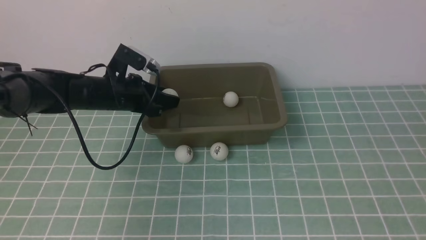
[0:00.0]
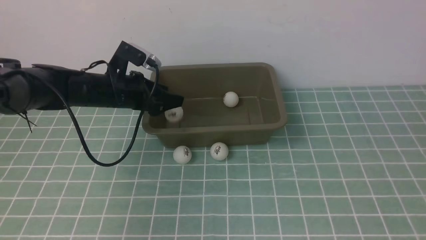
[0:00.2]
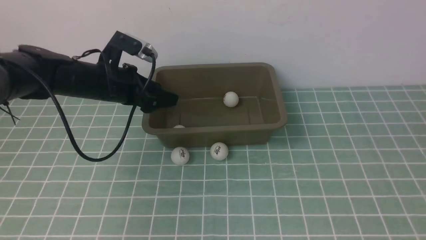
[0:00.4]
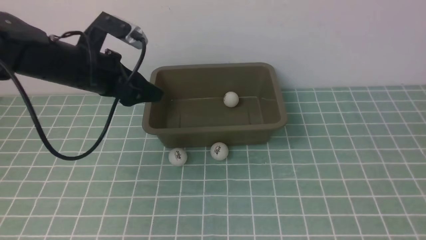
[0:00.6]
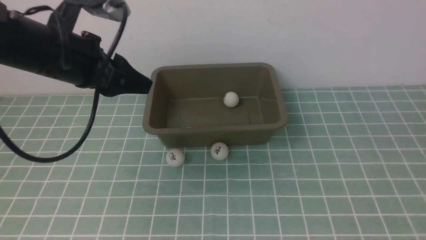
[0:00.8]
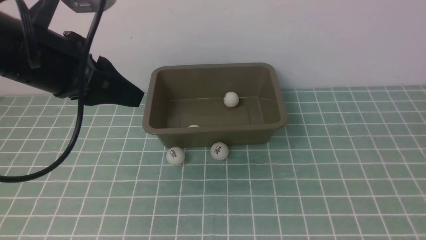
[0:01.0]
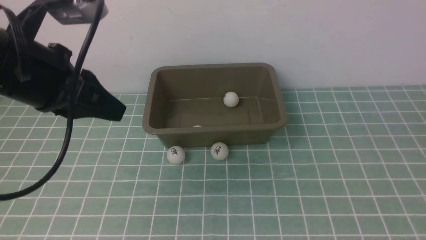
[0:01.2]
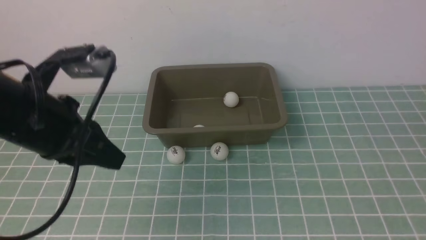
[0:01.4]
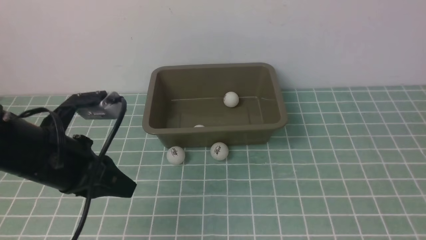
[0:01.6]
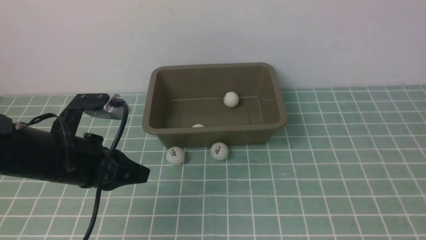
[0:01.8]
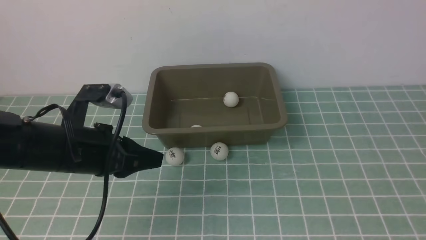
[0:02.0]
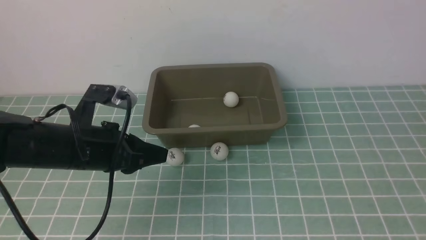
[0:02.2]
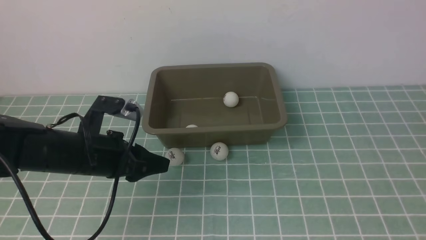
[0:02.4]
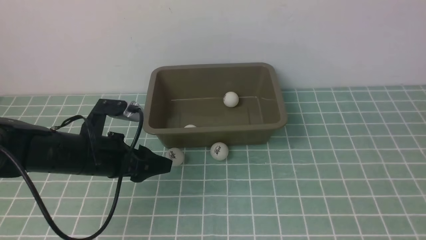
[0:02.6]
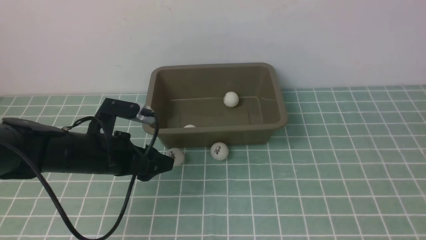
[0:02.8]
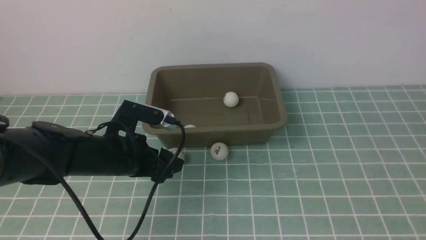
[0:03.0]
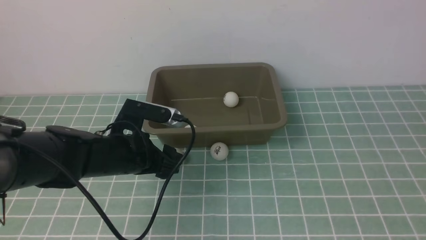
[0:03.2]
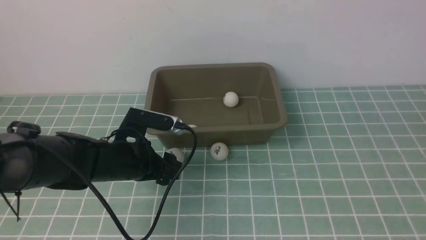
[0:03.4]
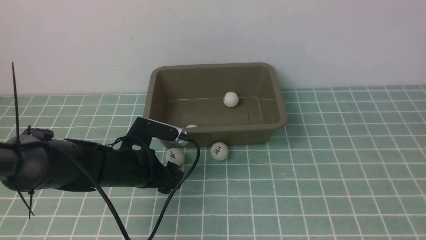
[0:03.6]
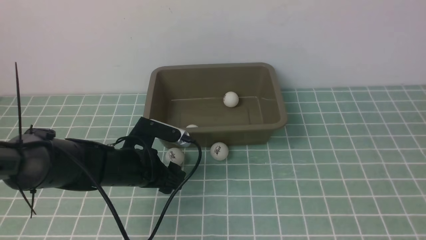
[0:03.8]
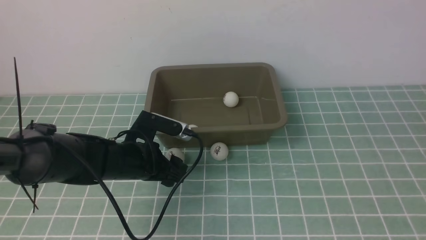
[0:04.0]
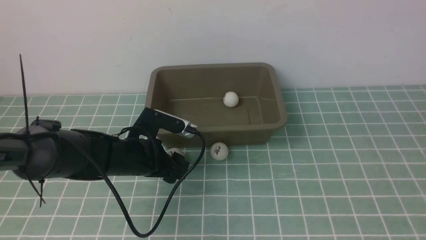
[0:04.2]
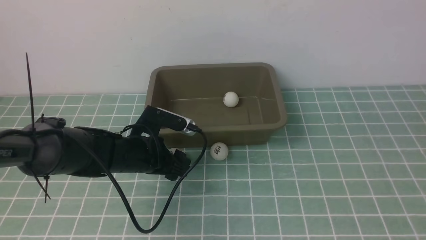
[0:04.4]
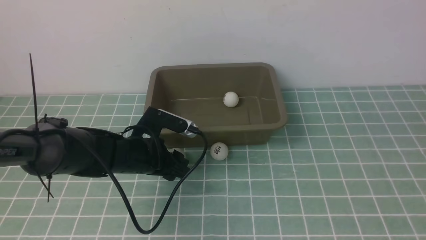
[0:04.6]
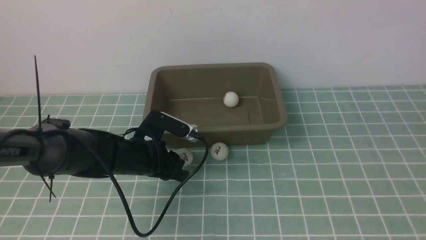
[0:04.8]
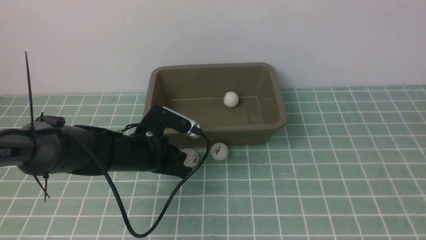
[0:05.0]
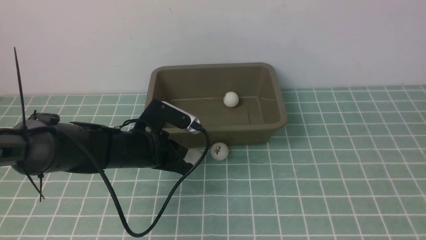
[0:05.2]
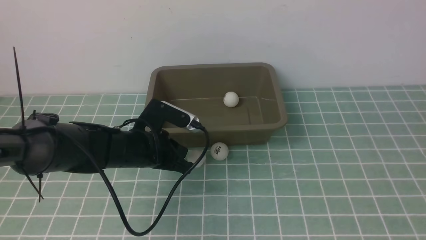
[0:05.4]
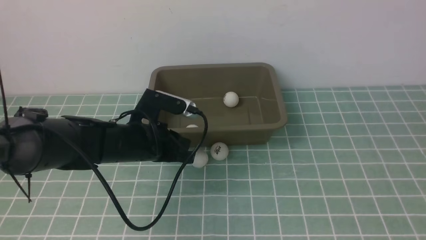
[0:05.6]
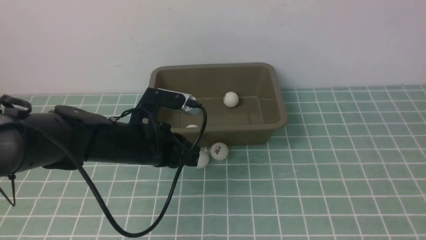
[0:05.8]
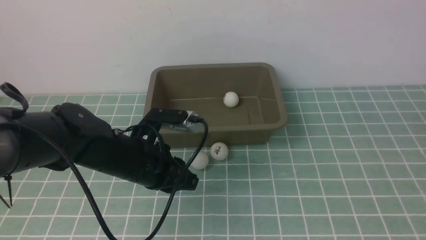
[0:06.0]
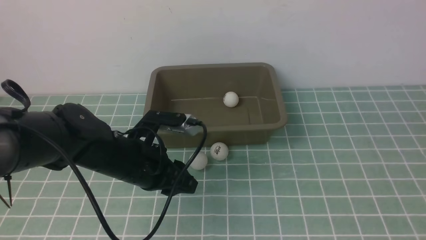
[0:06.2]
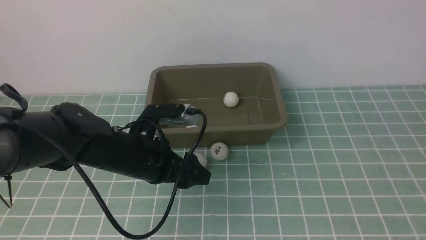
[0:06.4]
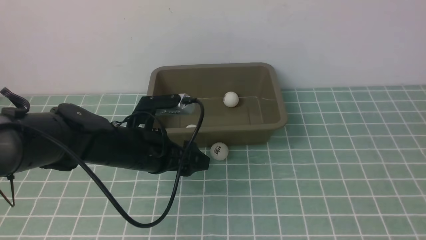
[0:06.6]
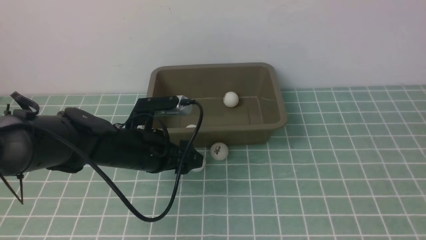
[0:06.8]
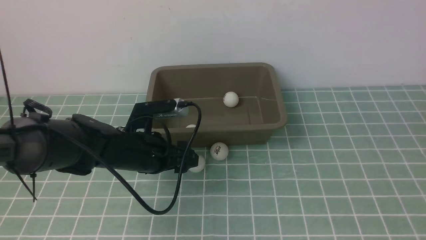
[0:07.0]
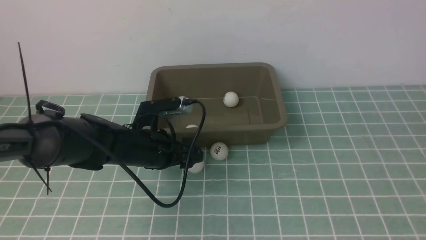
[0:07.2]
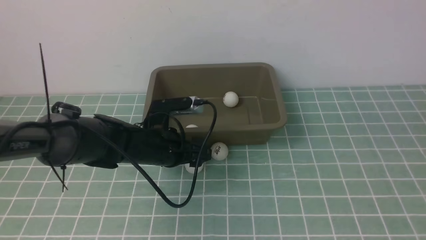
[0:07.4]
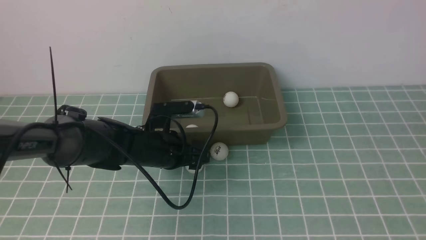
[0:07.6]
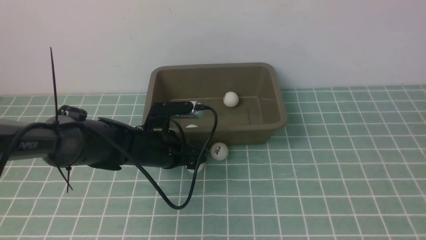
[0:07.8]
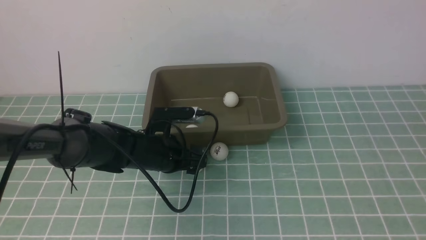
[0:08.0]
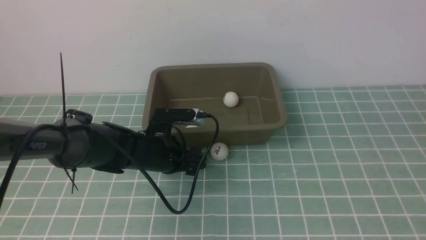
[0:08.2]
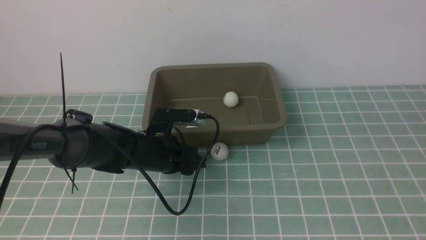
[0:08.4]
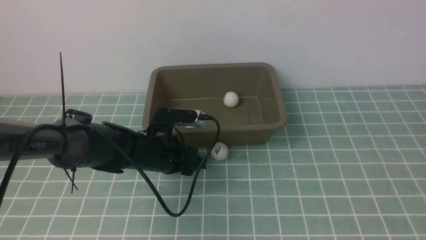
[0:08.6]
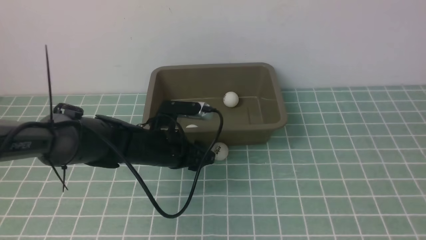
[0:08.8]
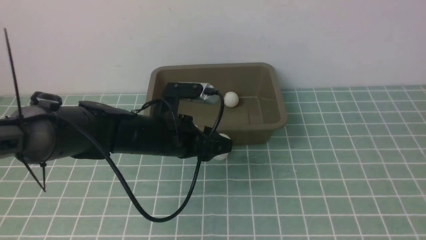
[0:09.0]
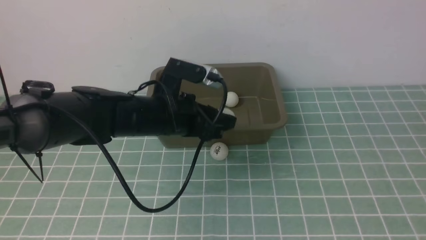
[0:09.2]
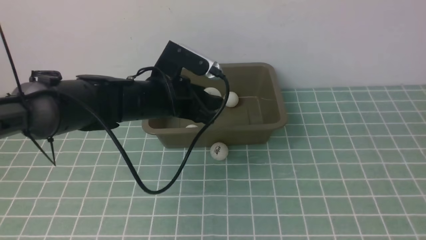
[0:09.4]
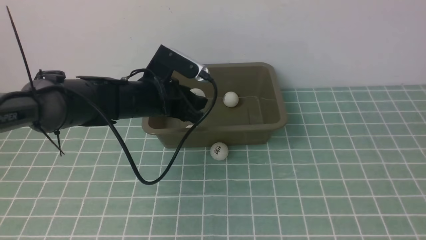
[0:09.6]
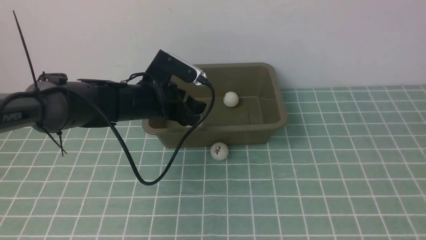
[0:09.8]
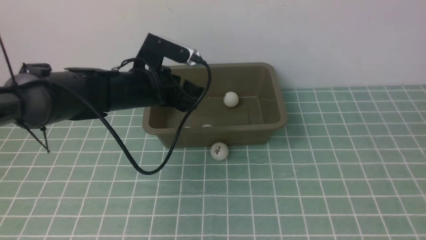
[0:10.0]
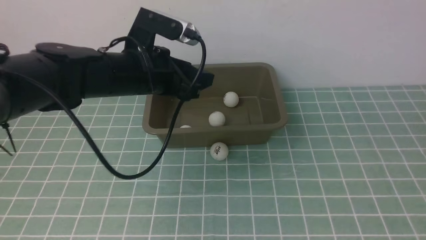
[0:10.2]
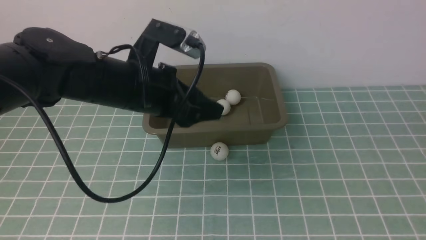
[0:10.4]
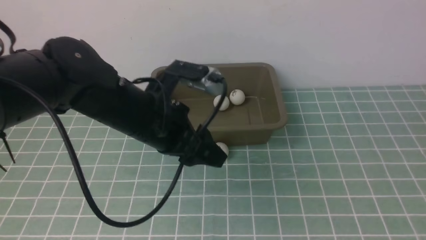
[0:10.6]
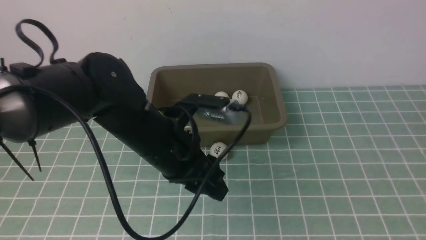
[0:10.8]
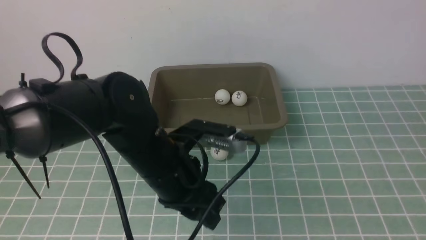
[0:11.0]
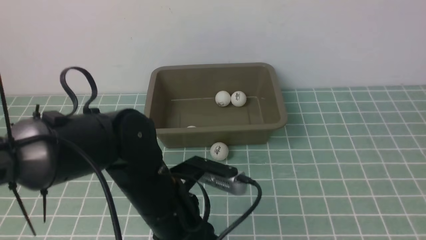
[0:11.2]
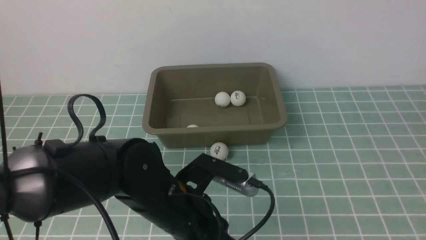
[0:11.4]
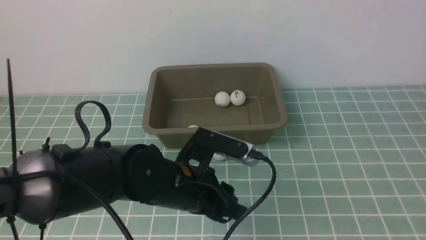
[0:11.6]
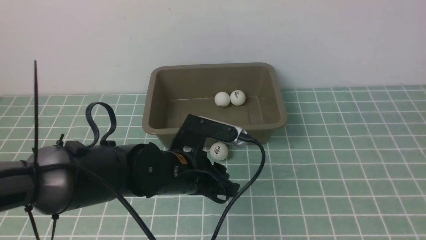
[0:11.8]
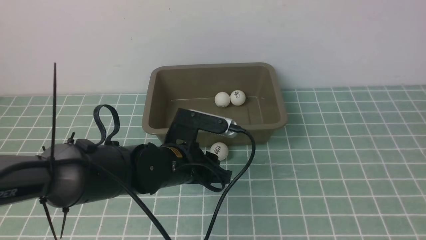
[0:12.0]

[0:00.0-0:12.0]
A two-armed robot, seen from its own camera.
Step, 0:00.6 to 0:08.8: use the left arm to clamp the table tennis ball closest to it.
Step, 0:09.0 to 0:10.0: use the left arm to put the table tennis ball into the box.
0:00.0 to 0:01.6: The left gripper travels backward by approximately 15 cm, and closes its fingers.
0:01.6 to 0:03.0: The left gripper shifts approximately 10 cm downward and forward, and opens its fingers.
0:03.0 to 0:04.4: The grippers make only small movements.
0:04.4 to 0:06.0: The left gripper is displaced upward by roughly 5 cm.
0:06.0 to 0:07.6: The left gripper moves forward and downward, about 10 cm, and opens its fingers.
0:07.6 to 0:09.0: The left gripper moves upward, approximately 10 cm, and closes its fingers.
0:09.0 to 0:10.4: The left gripper is displaced backward by some 5 cm.
0:10.4 to 0:12.0: The left gripper heads downward, covering roughly 10 cm.

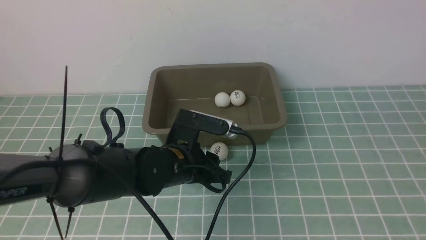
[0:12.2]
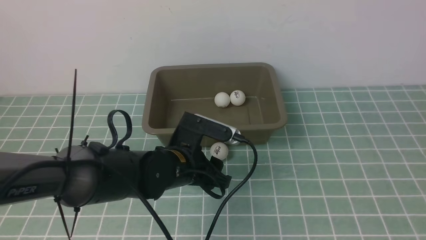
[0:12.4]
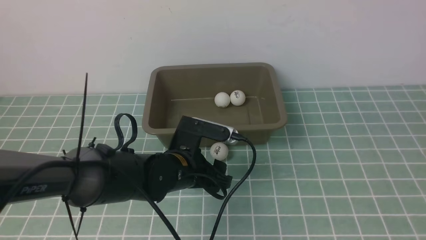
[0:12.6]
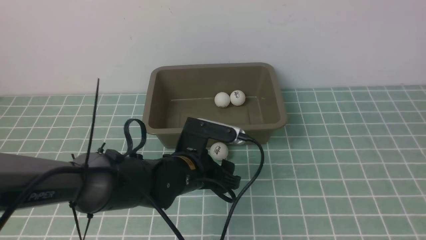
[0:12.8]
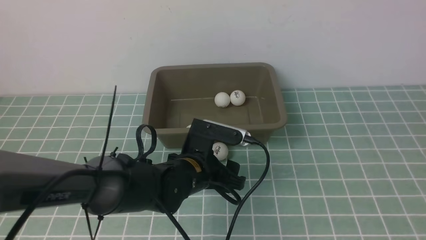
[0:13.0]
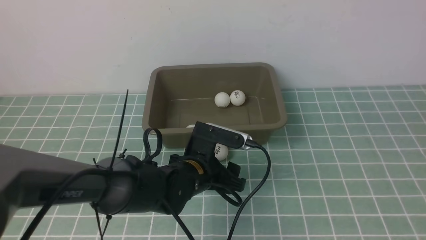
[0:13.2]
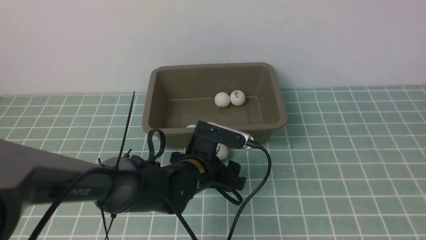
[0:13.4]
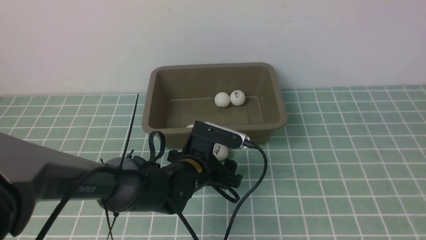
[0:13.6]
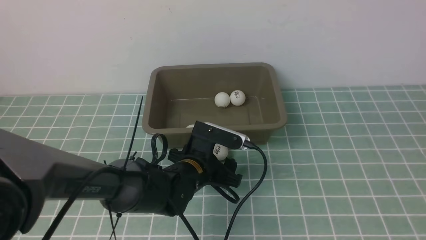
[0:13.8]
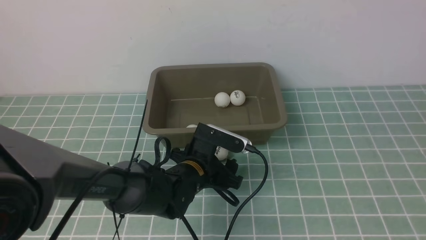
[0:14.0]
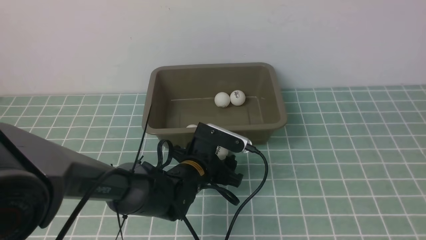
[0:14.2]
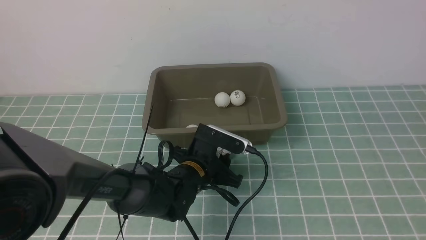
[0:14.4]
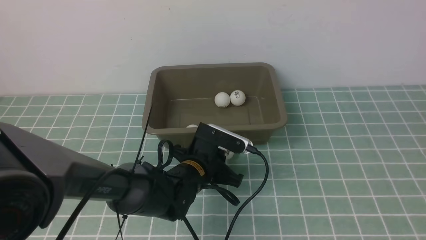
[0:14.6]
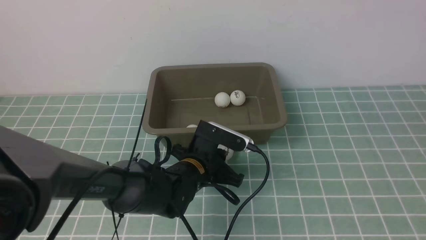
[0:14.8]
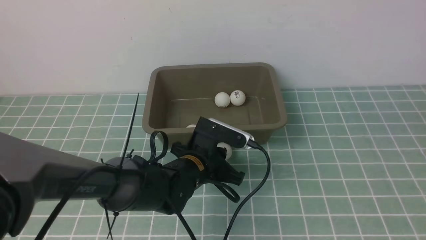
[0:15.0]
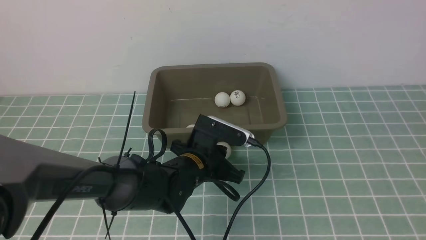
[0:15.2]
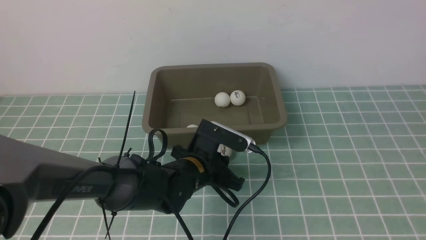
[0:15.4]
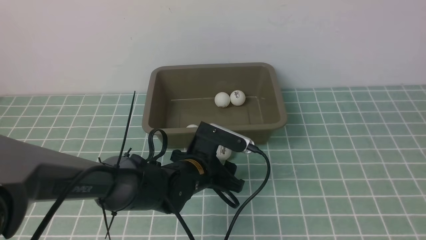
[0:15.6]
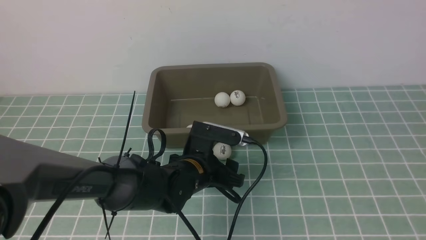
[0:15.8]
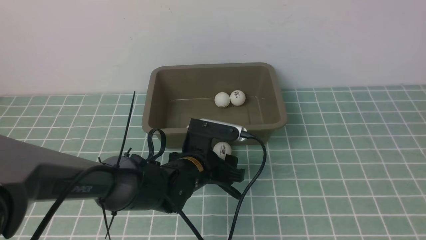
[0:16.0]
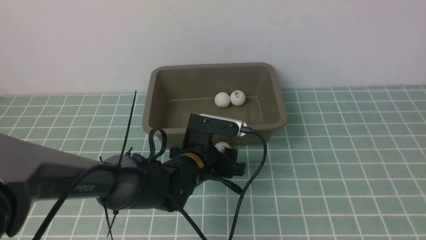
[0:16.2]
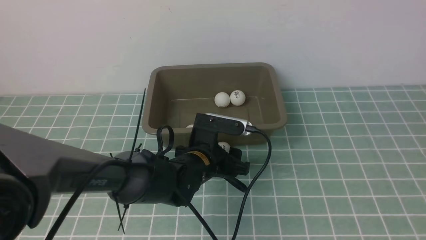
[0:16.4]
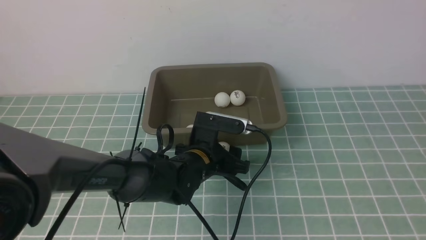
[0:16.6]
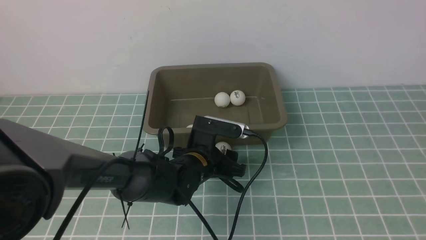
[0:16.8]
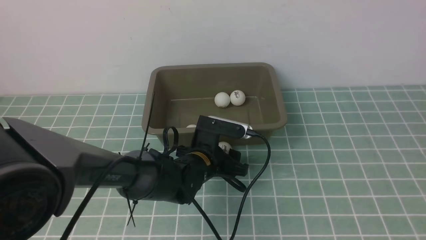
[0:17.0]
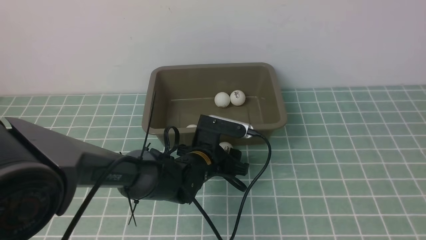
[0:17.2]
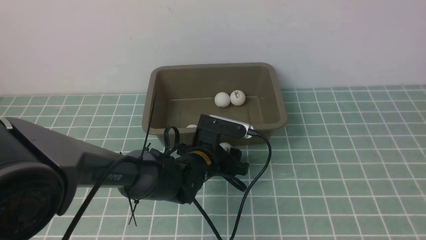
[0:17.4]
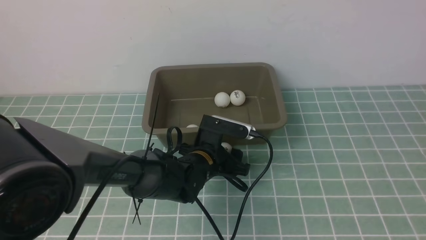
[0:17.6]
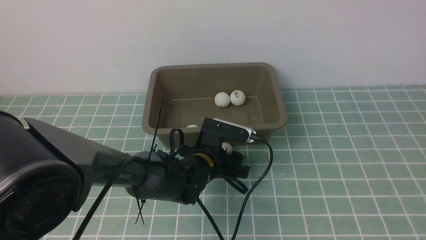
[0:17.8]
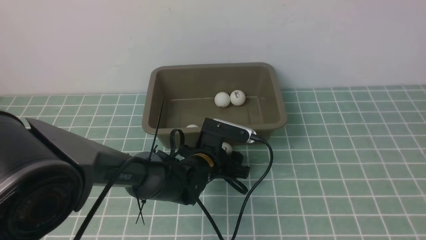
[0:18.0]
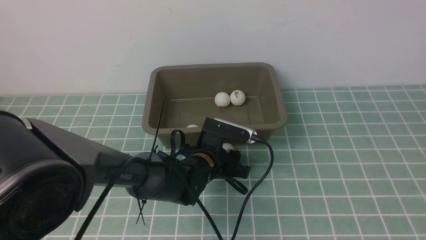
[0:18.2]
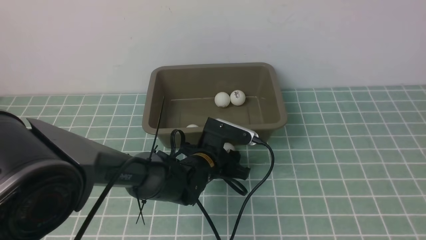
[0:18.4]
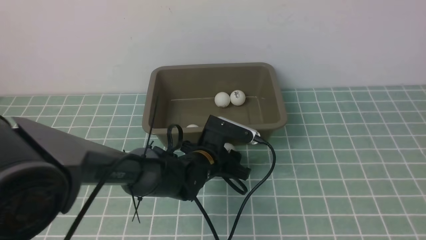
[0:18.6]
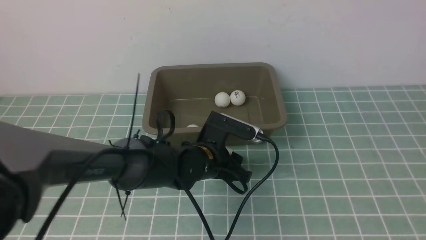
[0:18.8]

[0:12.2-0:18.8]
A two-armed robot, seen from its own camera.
0:12.2 to 0:13.8: The left gripper heads downward, covering roughly 5 cm, and opens up.
0:13.8 to 0:15.4: The left gripper closes.
0:15.4 to 0:17.2: The left gripper opens.
0:17.2 to 0:18.8: The grippers move only a little.
